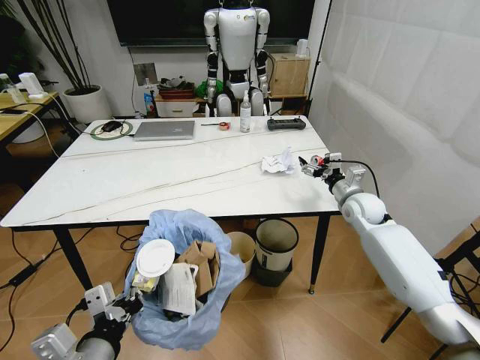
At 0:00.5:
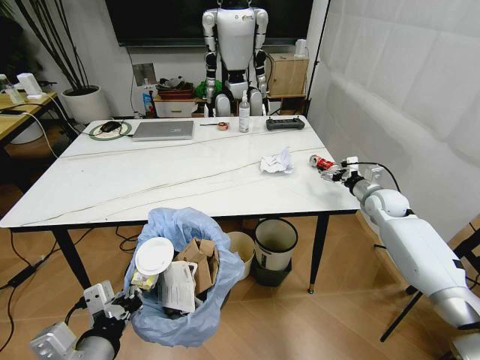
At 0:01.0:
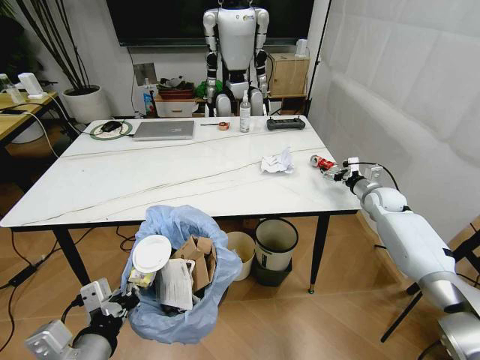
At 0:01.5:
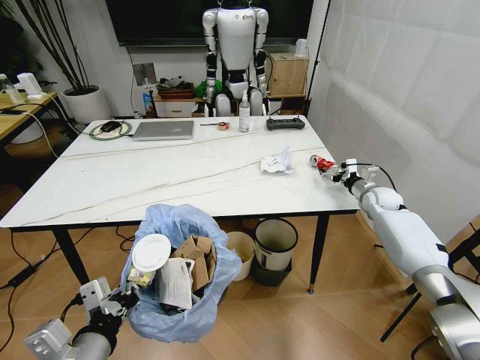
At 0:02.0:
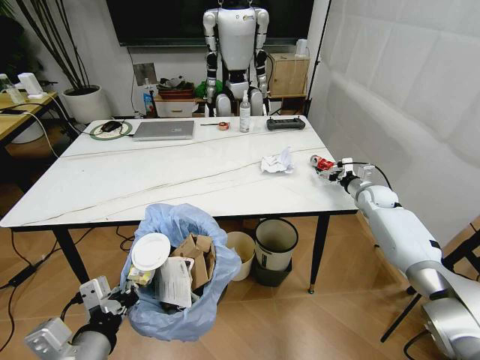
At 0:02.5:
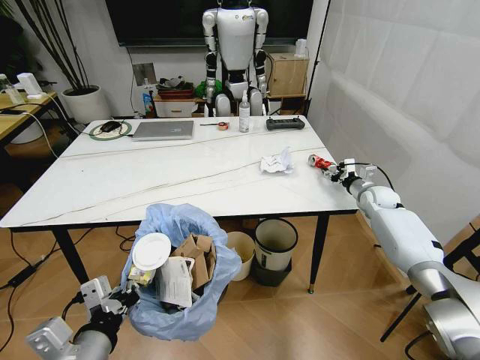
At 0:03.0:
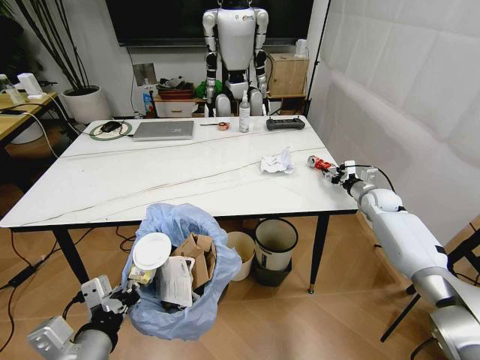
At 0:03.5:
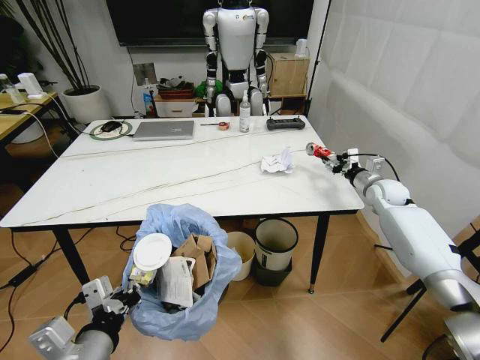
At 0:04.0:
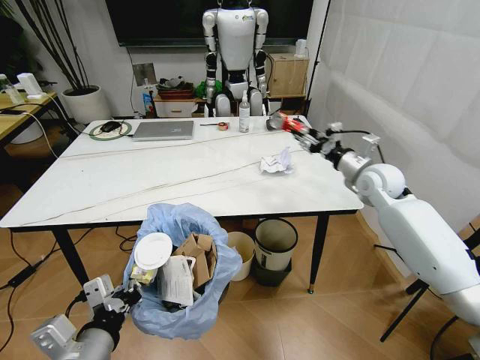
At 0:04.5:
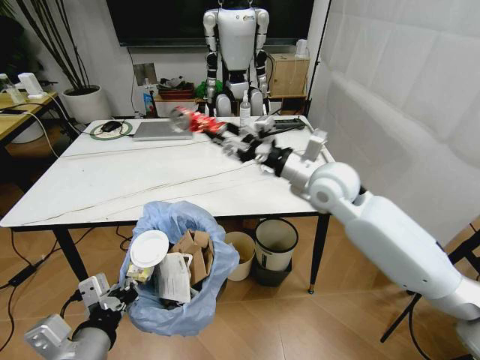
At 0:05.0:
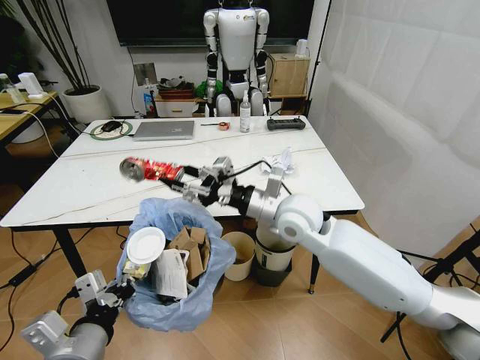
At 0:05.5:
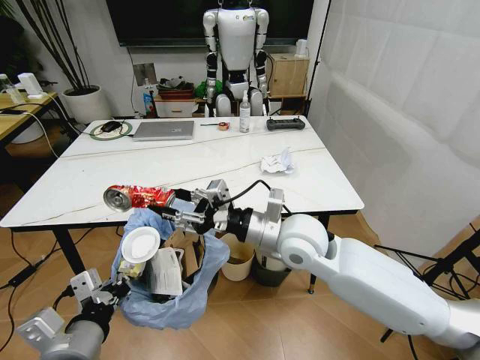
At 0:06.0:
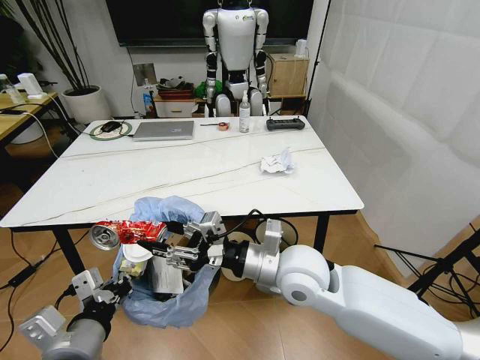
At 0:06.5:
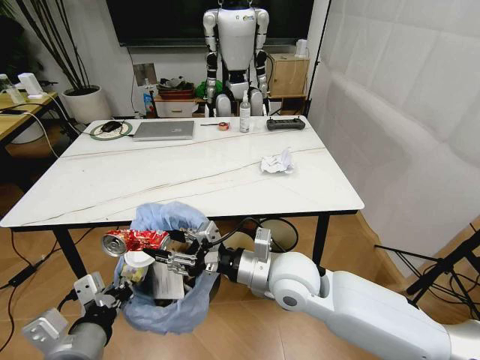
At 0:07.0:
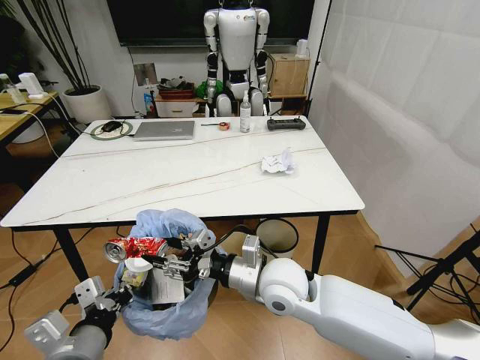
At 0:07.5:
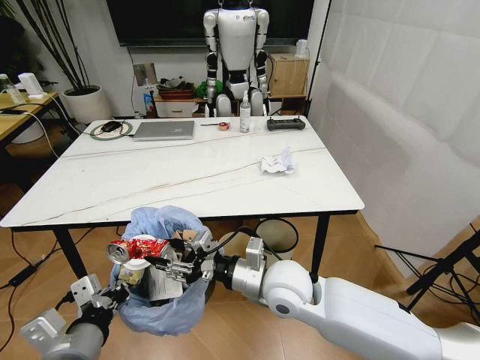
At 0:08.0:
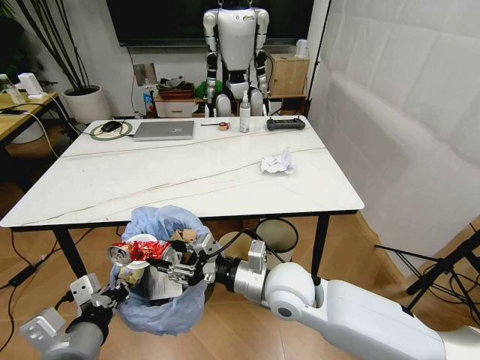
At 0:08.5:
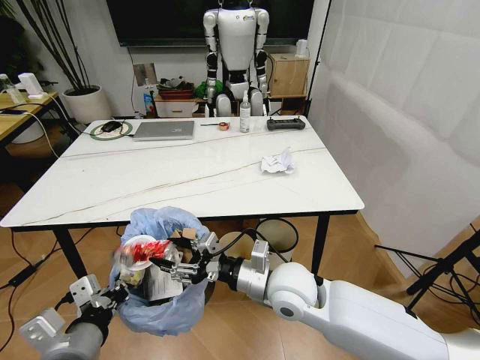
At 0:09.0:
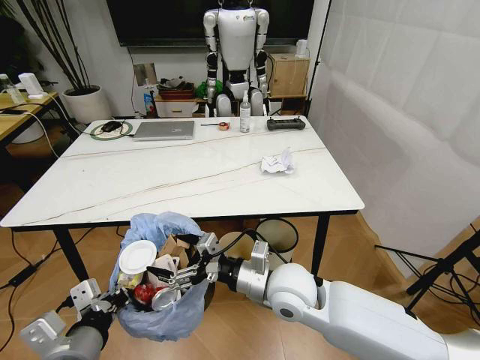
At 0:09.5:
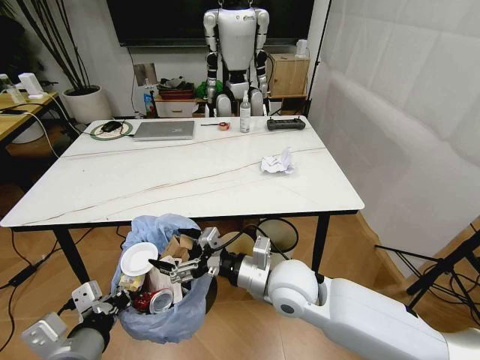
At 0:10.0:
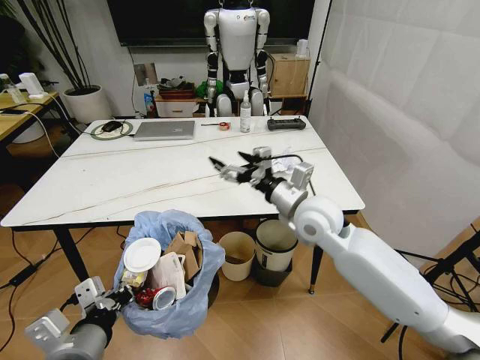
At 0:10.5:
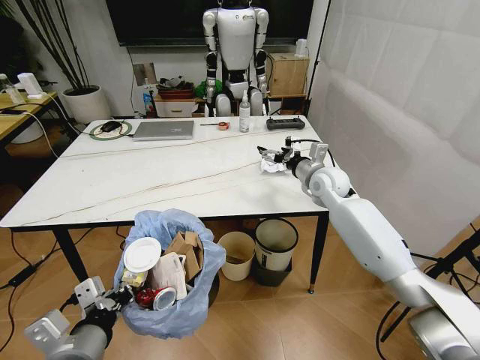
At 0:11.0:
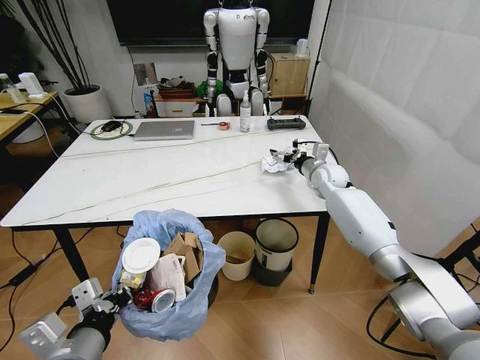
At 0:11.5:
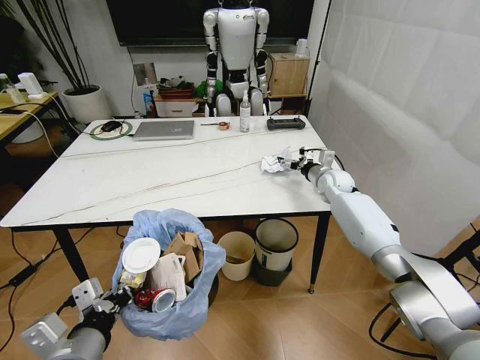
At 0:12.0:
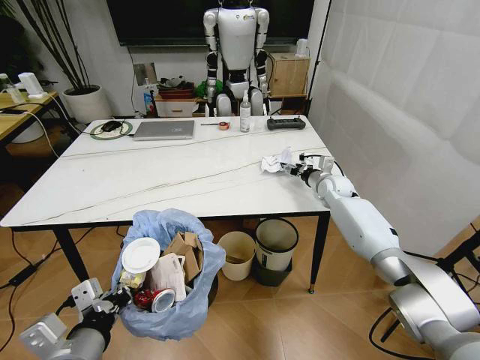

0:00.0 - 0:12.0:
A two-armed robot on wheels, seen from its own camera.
Task of the whole recording: Pick up the trash bin and place the trash from the table into it.
0:00.0 - 0:02.0: The right gripper moves to the right and forward, some 10 cm.
0:02.0 - 0:04.0: The right gripper is displaced upward, to the left and backward by approximately 15 cm, and closes its fingers.
0:04.0 - 0:06.0: The right gripper heads to the left and backward, covering roughly 35 cm.
0:06.0 - 0:08.0: The right gripper goes roughly 5 cm downward.
0:08.0 - 0:10.0: The right gripper goes some 15 cm forward, upward and to the right, and opens.
0:10.0 - 0:12.0: The right gripper travels forward, to the right and downward by about 25 cm, and closes its fingers.

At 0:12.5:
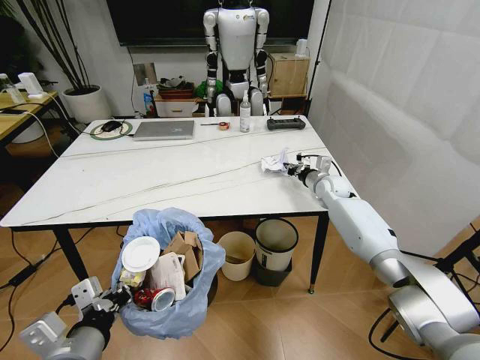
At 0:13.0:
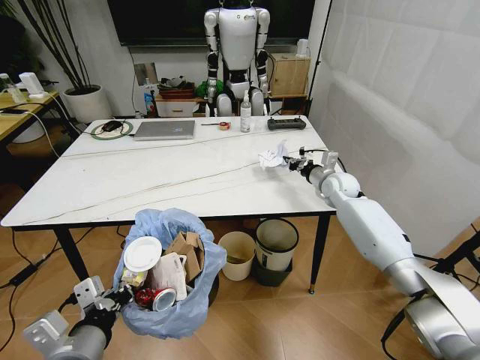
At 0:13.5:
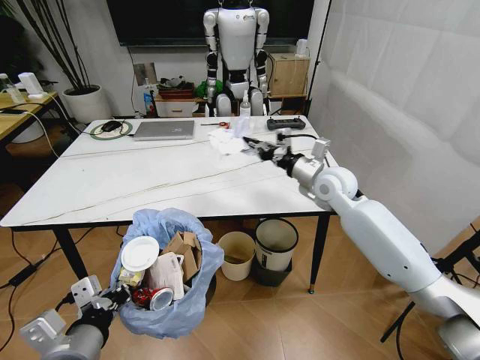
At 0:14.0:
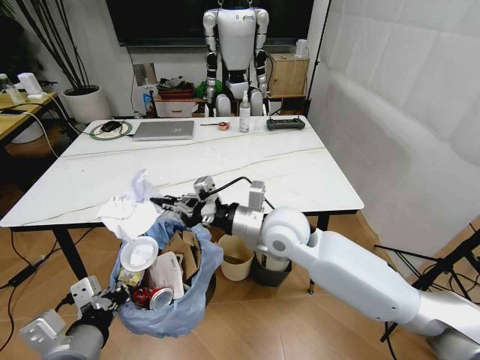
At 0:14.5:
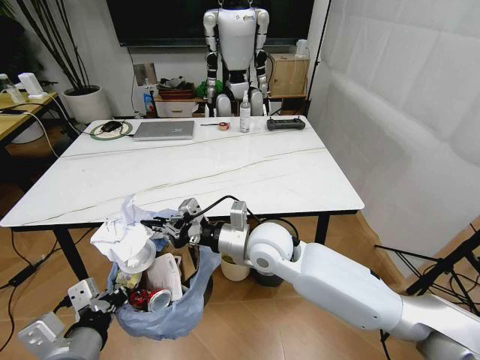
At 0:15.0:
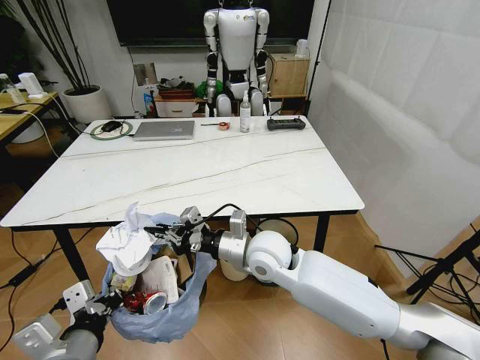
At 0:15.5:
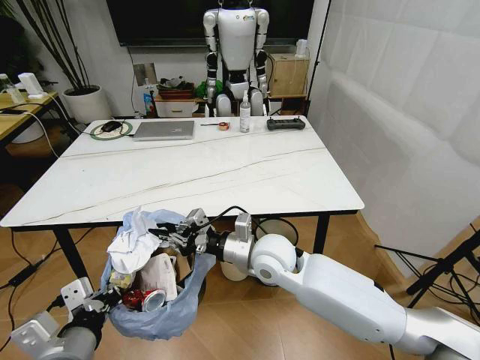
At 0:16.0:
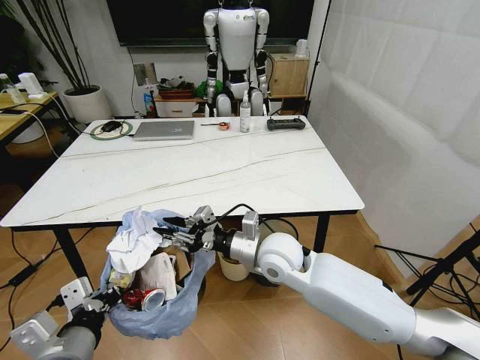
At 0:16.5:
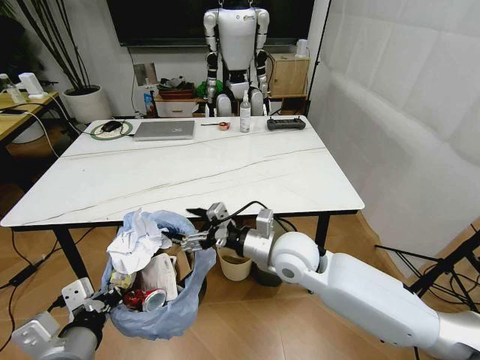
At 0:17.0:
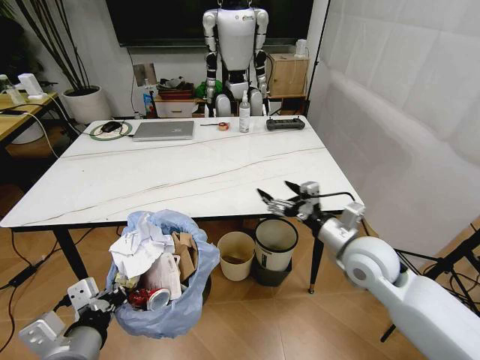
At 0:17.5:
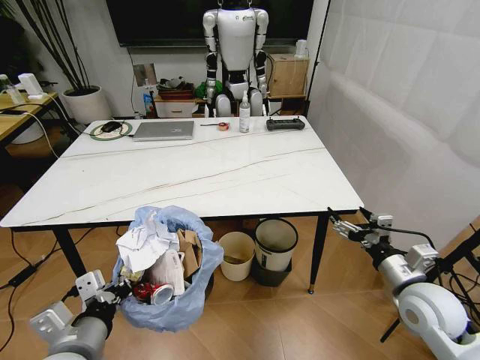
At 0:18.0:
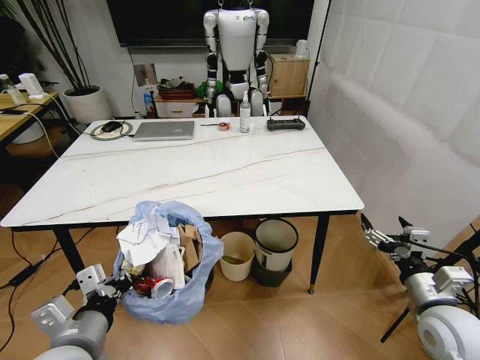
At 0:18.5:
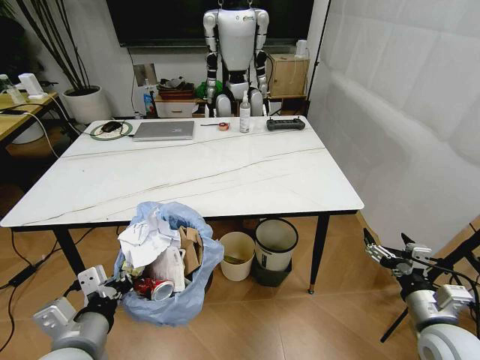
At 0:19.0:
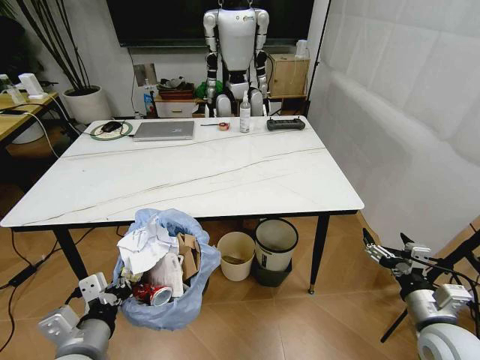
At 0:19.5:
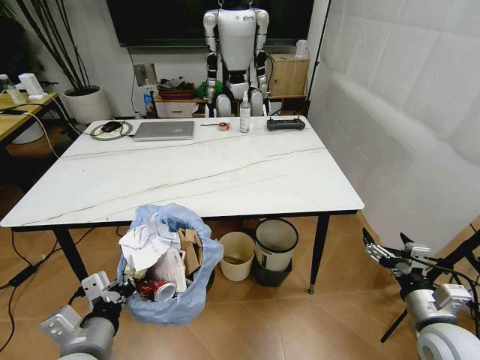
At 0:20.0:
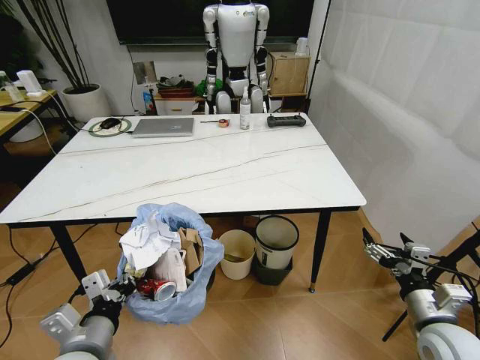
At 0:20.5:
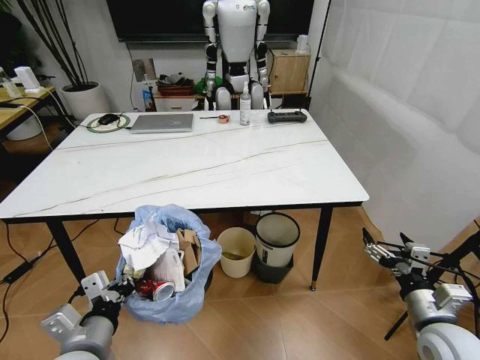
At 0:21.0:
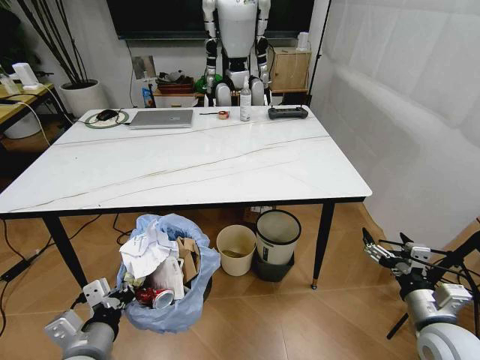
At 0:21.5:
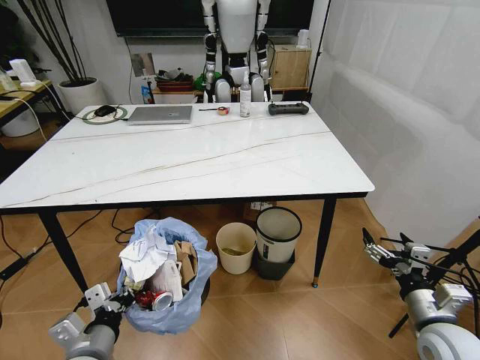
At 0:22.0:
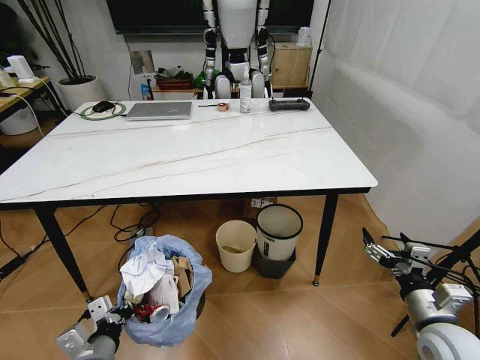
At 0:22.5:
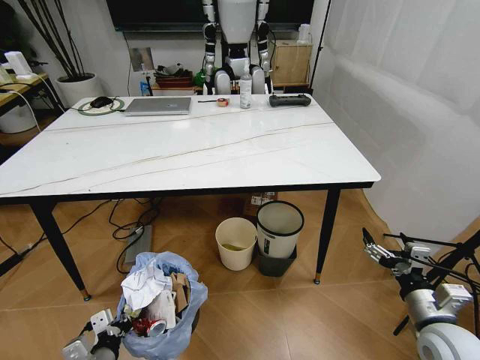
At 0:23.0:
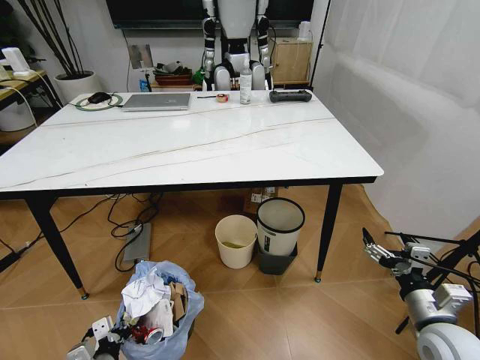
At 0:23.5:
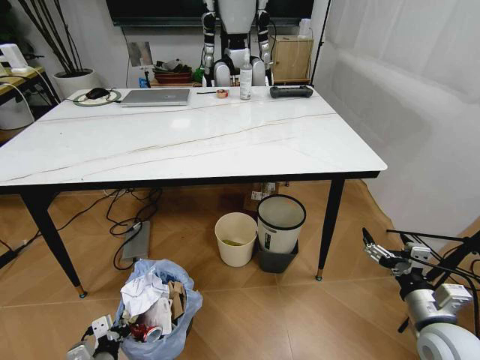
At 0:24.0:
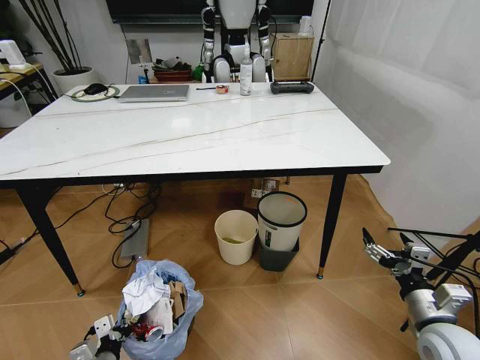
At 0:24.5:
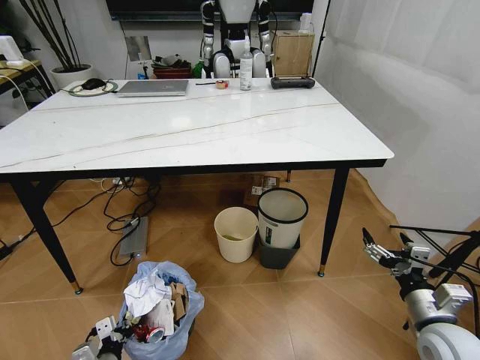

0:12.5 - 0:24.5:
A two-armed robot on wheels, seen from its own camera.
Task of the whole recording: Pick up the trash bin and place the trash from the table into it.
0:12.5 - 0:14.5: The right gripper heads backward and to the left, covering about 35 cm.
0:14.5 - 0:16.5: The right gripper is displaced to the right by about 5 cm, and opens.
0:16.5 - 0:18.5: The right gripper heads to the right and backward, covering about 30 cm.
0:18.5 - 0:20.5: The grippers stay close to where they were, moving slightly.
0:20.5 - 0:22.5: The left gripper heads downward, covering about 15 cm.
0:22.5 - 0:24.5: The left gripper goes roughly 5 cm downward.

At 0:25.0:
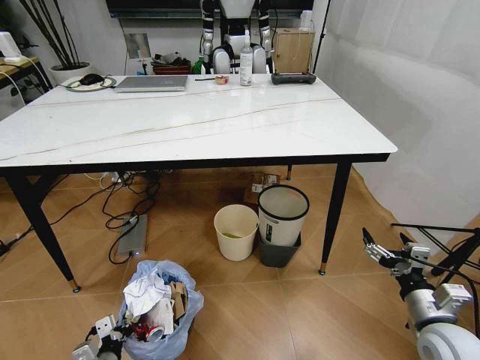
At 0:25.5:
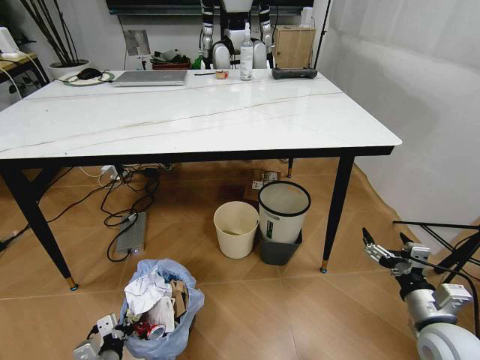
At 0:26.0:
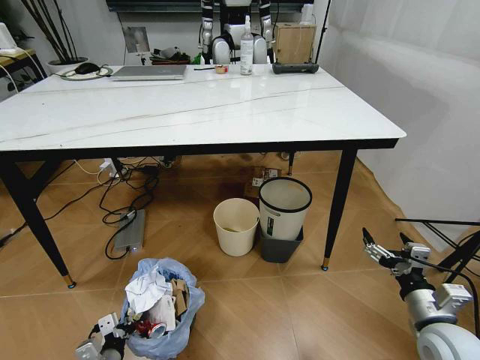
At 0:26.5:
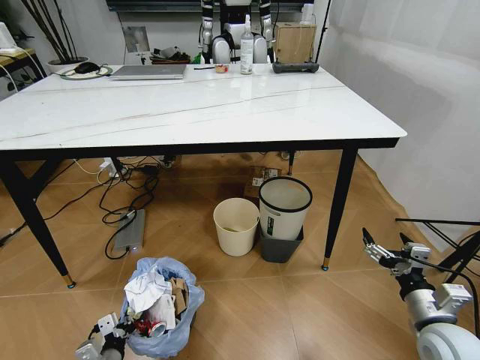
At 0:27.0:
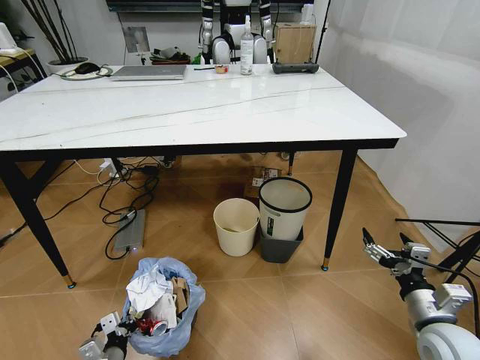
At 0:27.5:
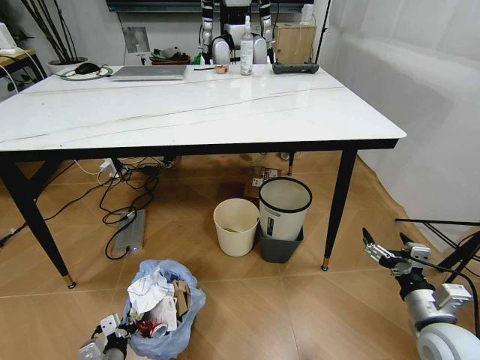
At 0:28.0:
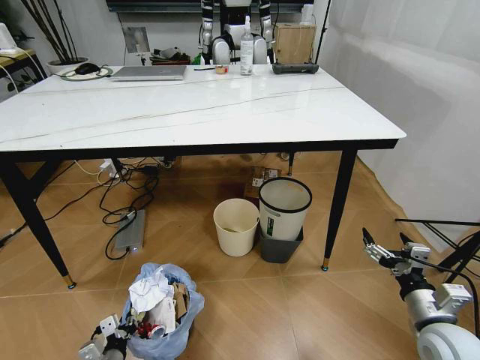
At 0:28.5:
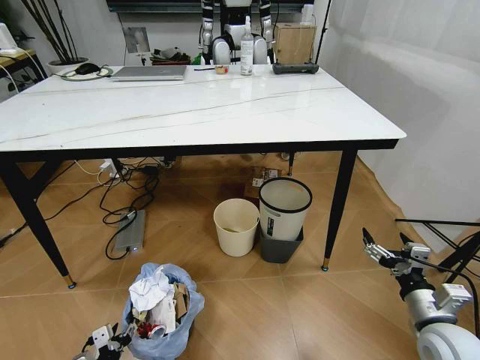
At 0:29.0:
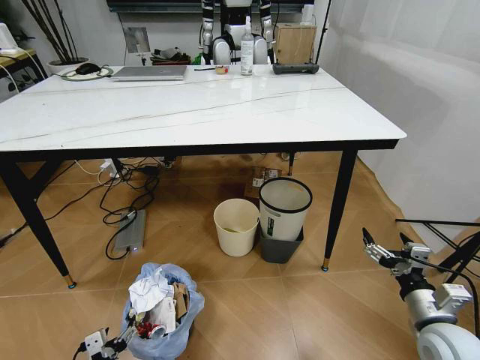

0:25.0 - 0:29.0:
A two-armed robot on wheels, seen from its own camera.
Task of the whole recording: Pick up the trash bin and place the trash from the table into it.
0:27.0 - 0:29.0: The left gripper goes some 5 cm backward, and opens up.
